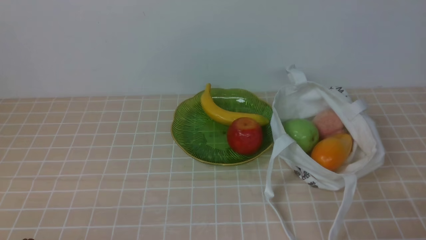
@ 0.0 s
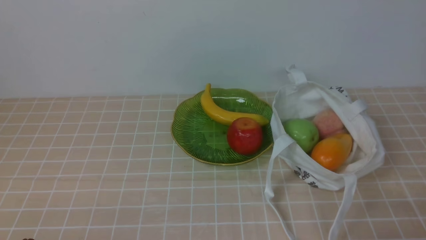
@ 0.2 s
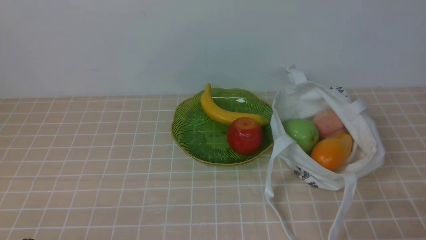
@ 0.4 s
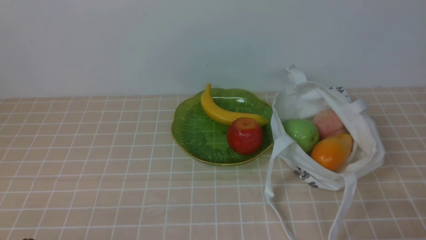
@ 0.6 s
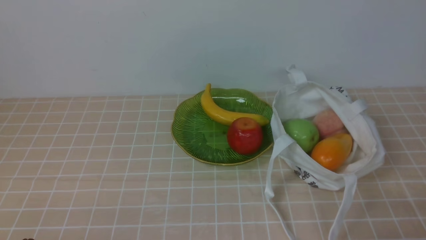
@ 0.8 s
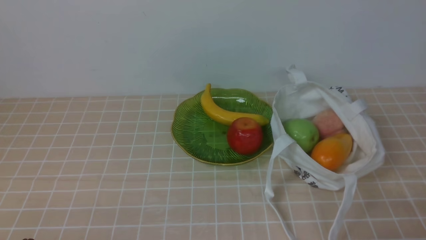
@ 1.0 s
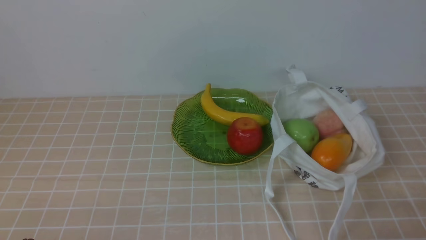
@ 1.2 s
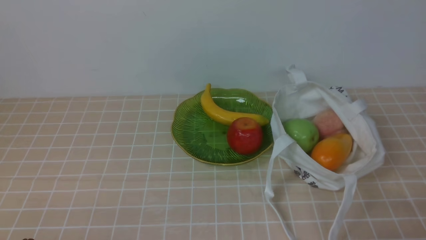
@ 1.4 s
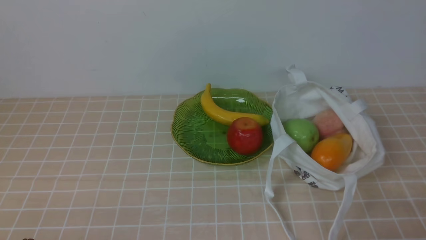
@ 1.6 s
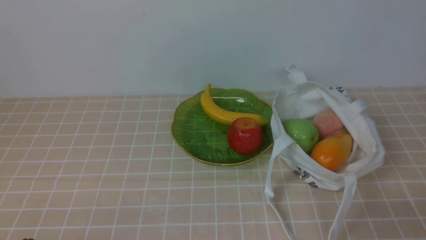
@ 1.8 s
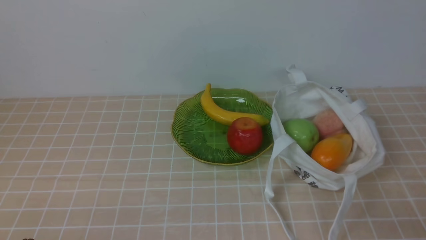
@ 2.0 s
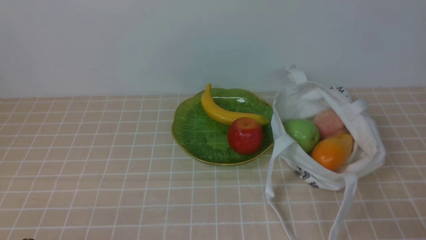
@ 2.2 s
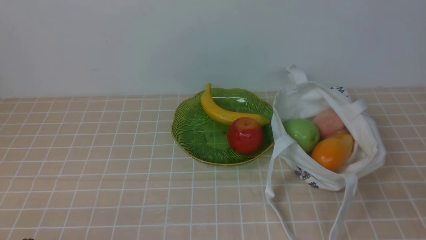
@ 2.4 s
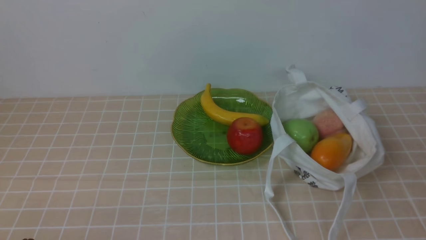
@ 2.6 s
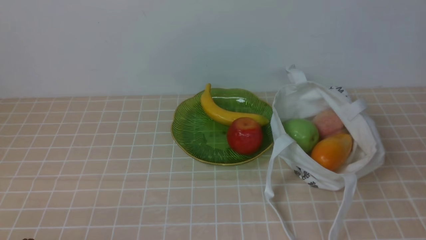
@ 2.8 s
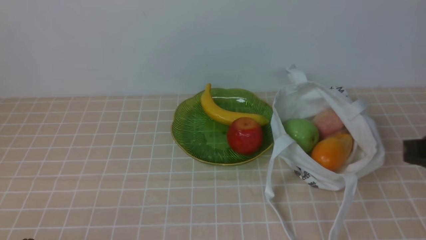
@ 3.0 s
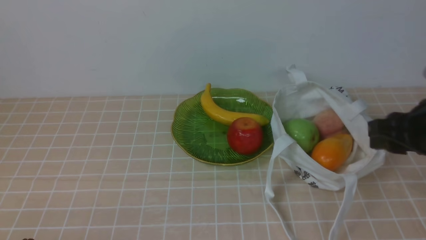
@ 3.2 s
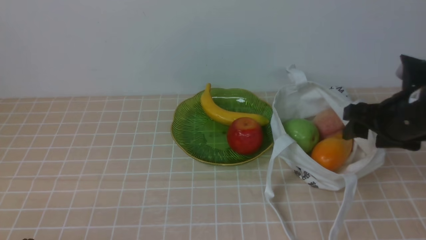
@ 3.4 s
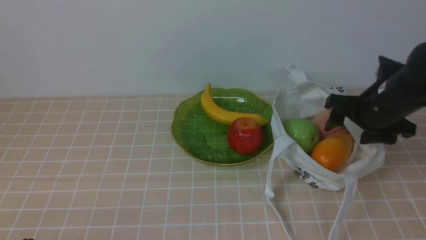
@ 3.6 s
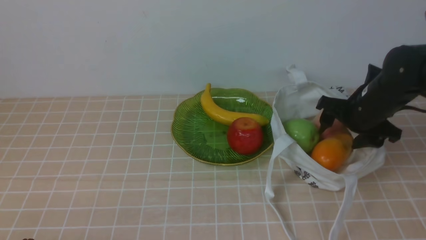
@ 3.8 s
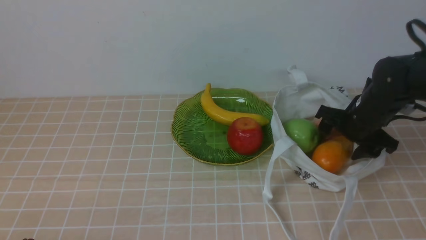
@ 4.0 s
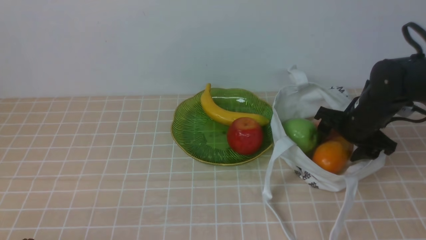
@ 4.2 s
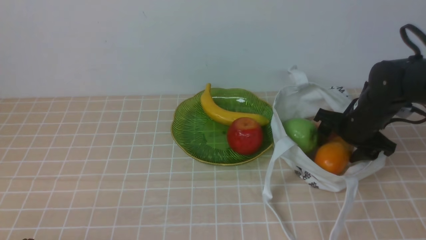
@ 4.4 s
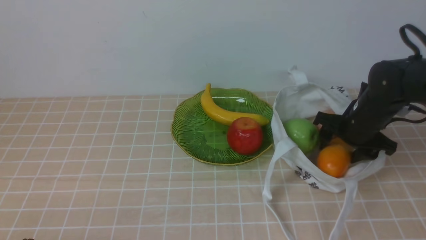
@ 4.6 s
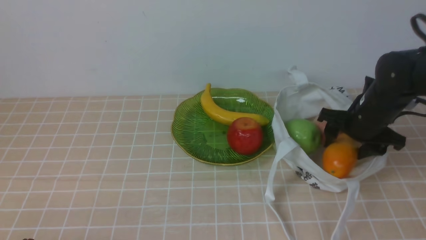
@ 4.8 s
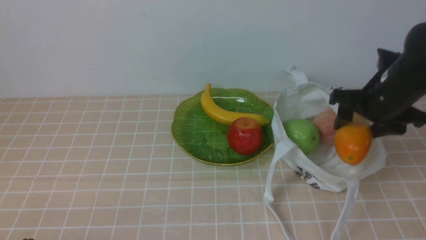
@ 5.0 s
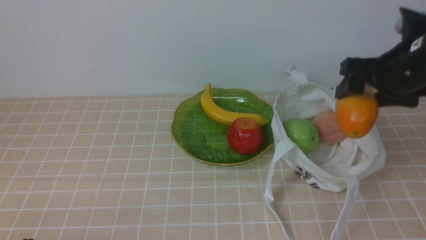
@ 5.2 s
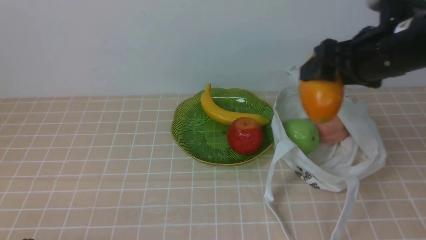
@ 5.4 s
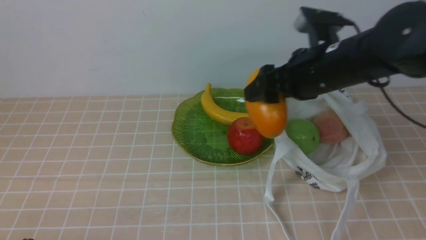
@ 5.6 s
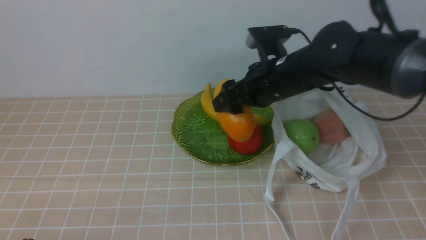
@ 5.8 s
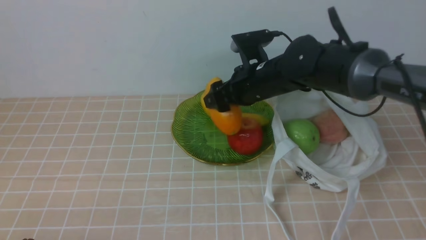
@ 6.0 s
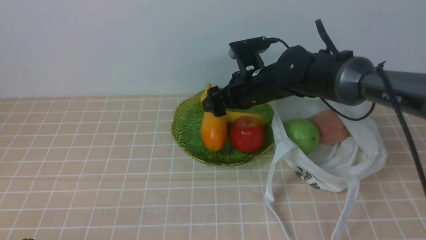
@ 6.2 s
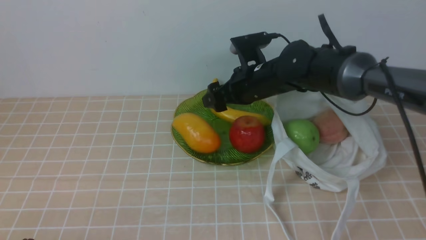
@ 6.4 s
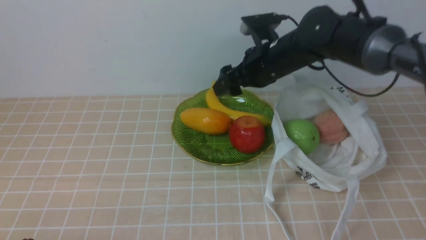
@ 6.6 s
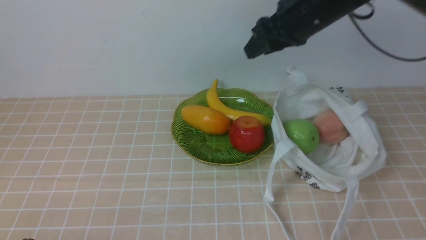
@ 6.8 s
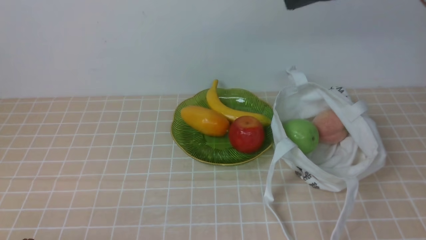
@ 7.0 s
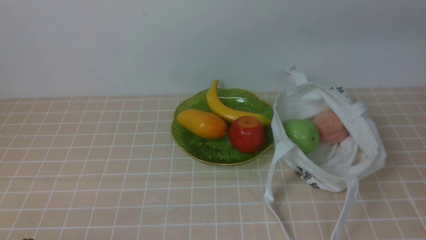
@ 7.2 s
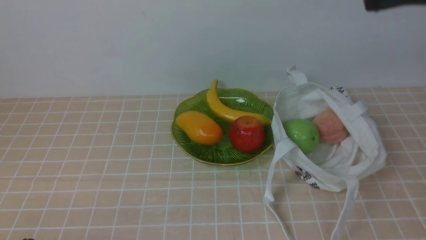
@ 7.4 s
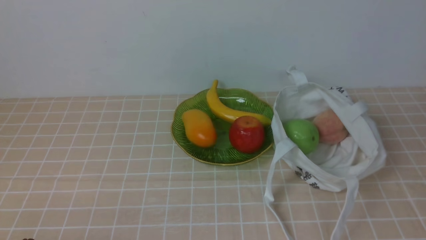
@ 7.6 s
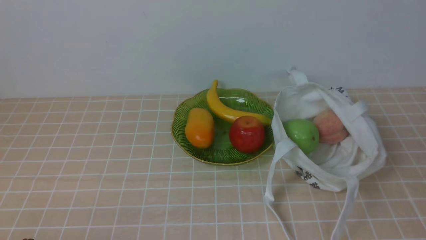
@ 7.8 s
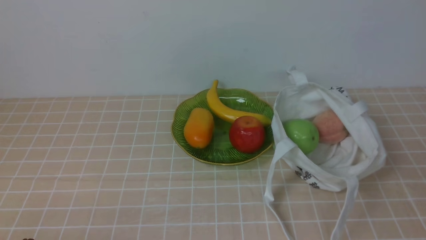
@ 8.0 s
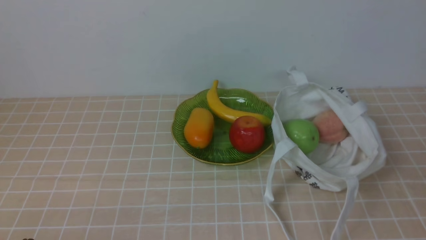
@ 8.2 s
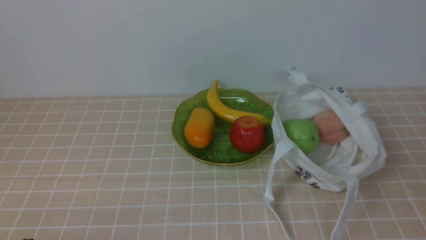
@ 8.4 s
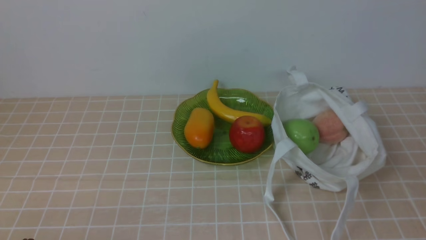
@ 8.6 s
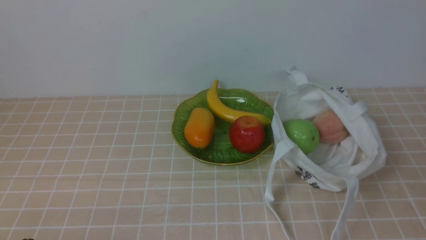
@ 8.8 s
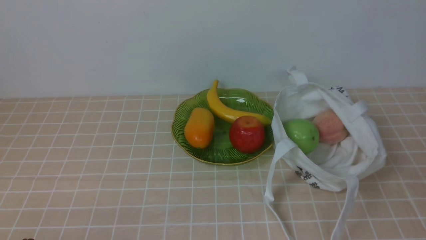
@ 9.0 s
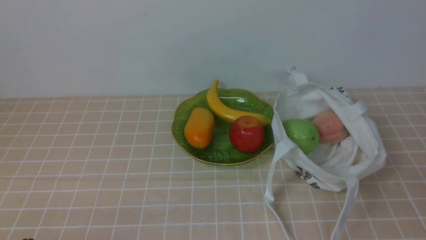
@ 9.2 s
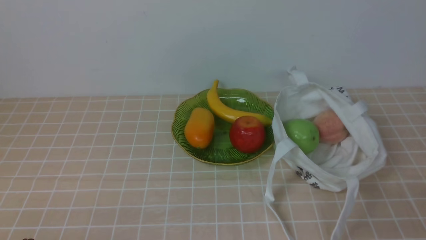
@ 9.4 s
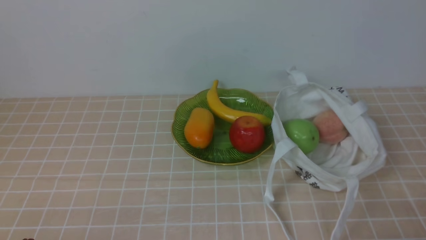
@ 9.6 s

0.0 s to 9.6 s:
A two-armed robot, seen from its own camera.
Step, 0.0 to 4.8 s: use the right arm to grab a mango from the bag.
Step, 5.0 to 6.4 s: use the right arm to put the mango into the empty plate on the left.
1.6 to 3.2 s: The right gripper shifts about 20 cm forward and upward, and opens up.
3.2 to 4.8 s: The right gripper moves forward and downward, roughly 15 cm.
4.8 to 6.4 s: The right gripper goes approximately 15 cm to the left.
6.4 to 8.0 s: The right gripper moves backward and to the right, about 50 cm, and closes.

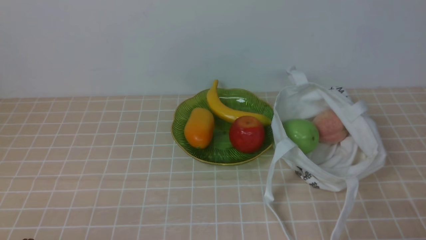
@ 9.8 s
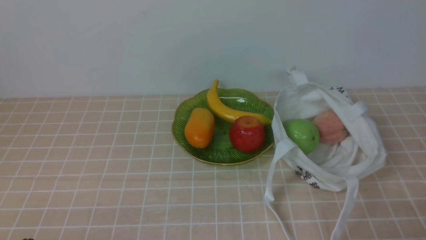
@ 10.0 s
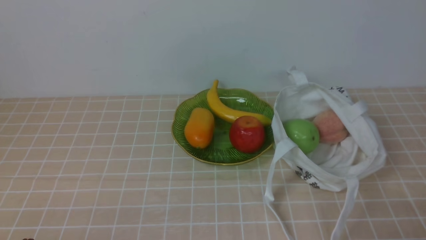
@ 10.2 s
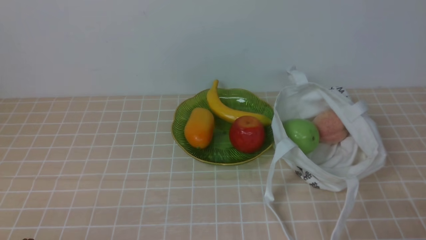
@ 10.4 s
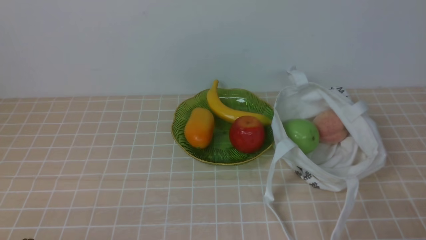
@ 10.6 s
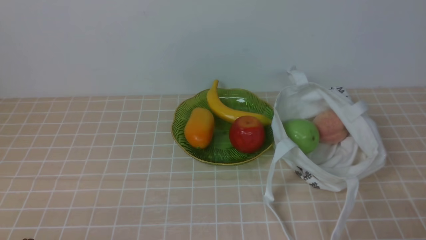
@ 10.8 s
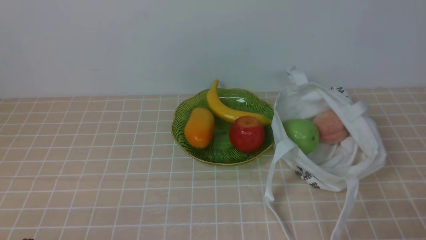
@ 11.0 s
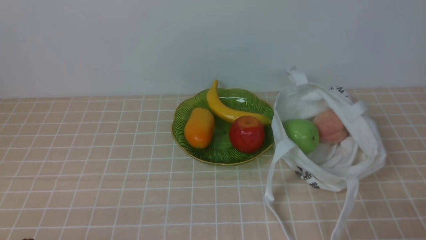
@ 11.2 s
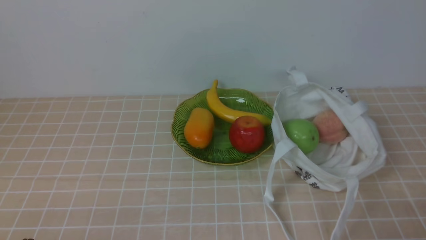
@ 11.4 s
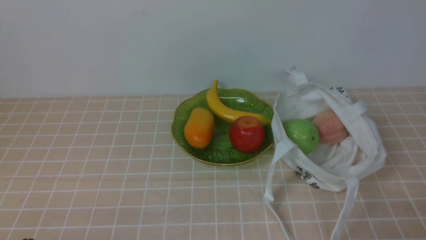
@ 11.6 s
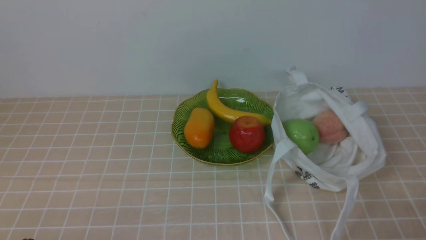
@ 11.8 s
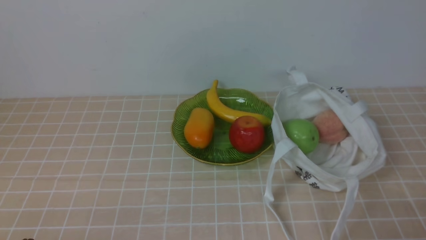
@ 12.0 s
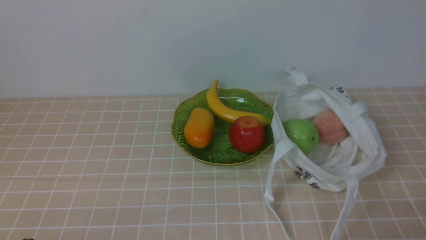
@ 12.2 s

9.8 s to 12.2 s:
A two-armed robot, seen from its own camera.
9.8 to 12.2 s: Neither gripper changes place.
